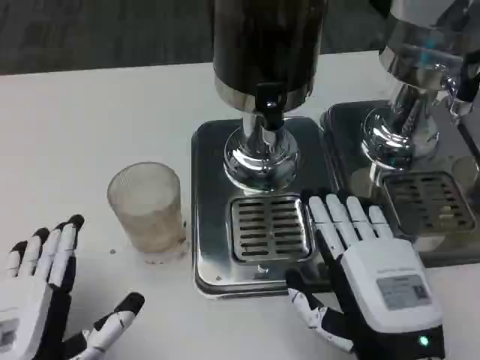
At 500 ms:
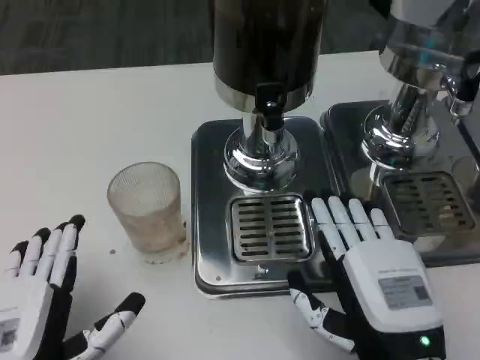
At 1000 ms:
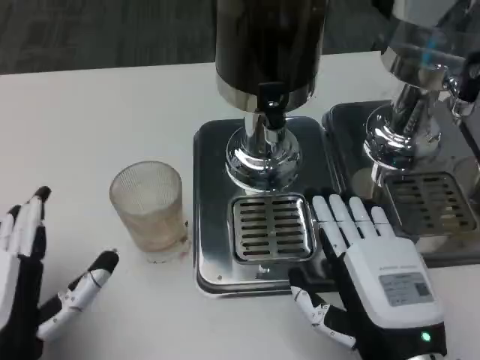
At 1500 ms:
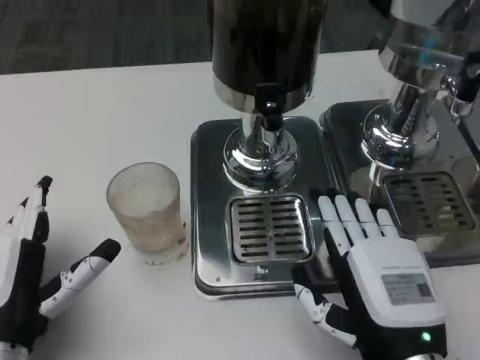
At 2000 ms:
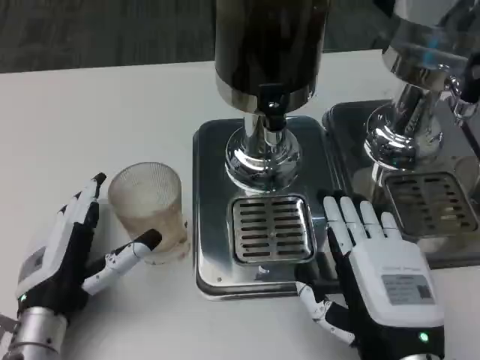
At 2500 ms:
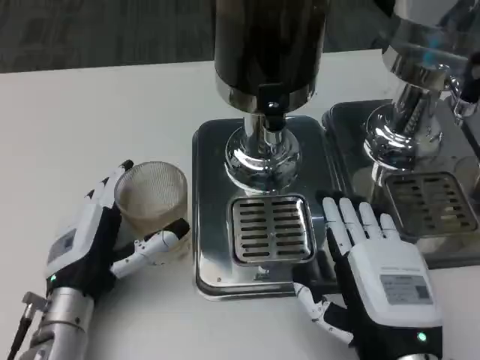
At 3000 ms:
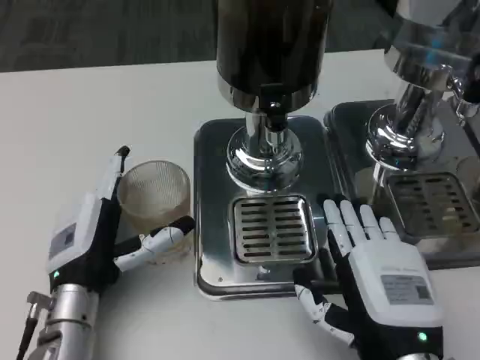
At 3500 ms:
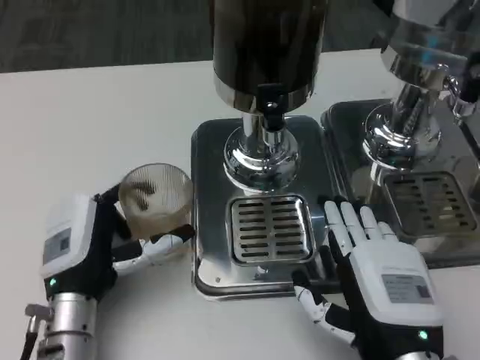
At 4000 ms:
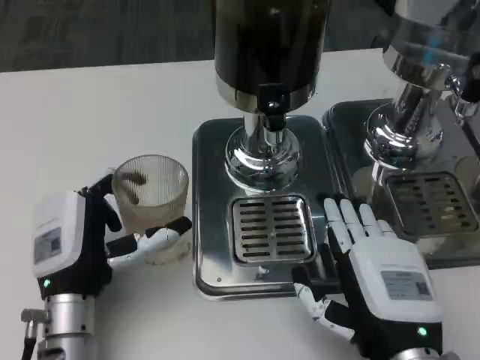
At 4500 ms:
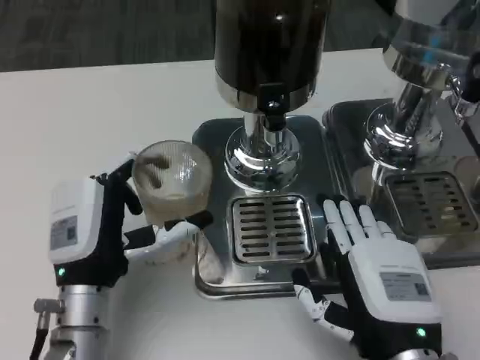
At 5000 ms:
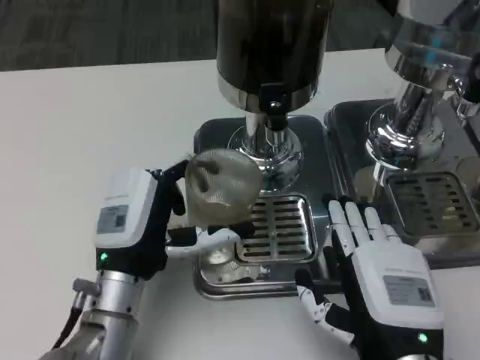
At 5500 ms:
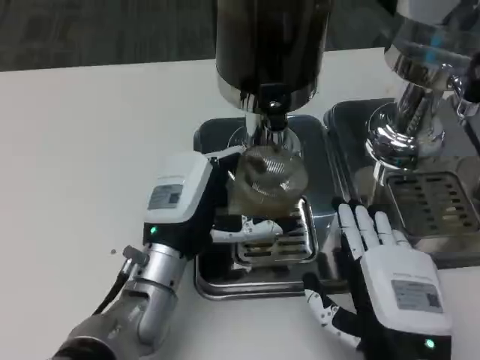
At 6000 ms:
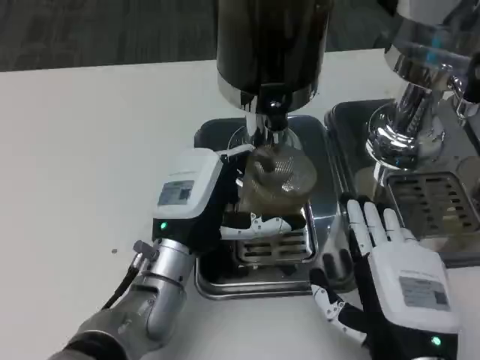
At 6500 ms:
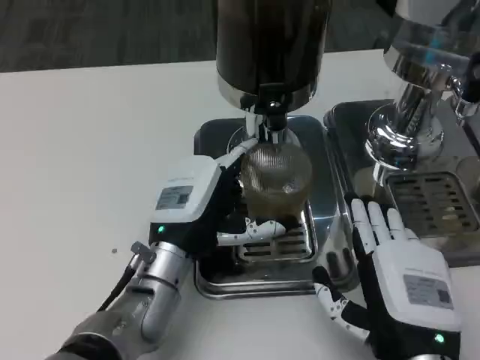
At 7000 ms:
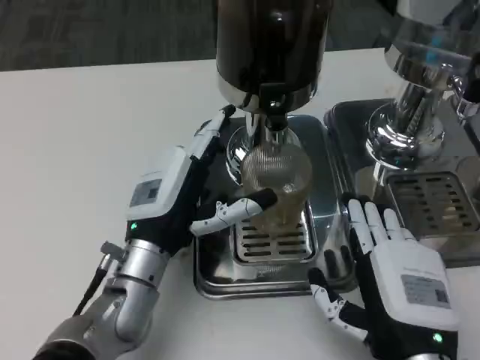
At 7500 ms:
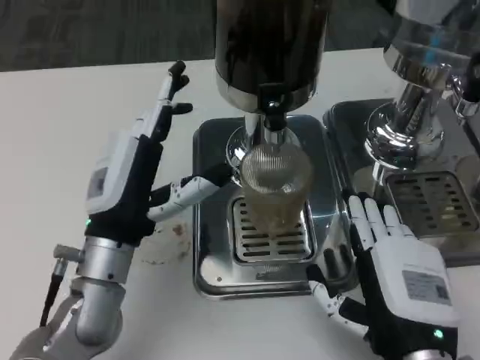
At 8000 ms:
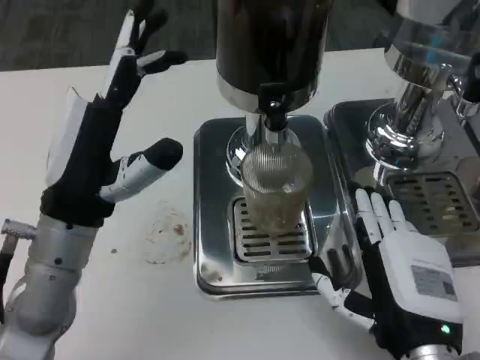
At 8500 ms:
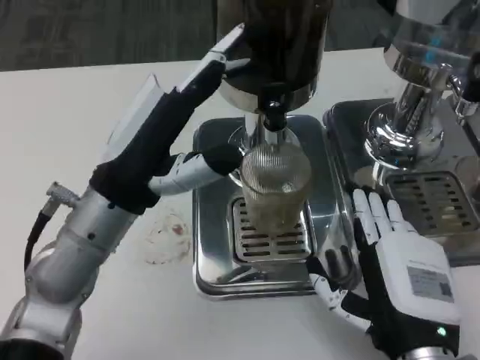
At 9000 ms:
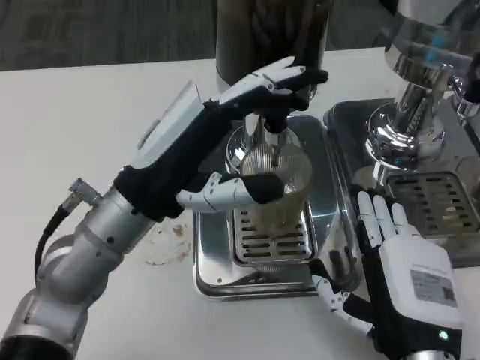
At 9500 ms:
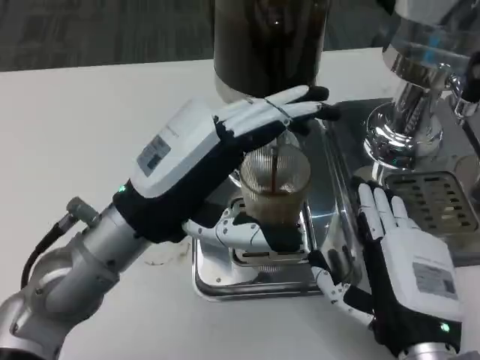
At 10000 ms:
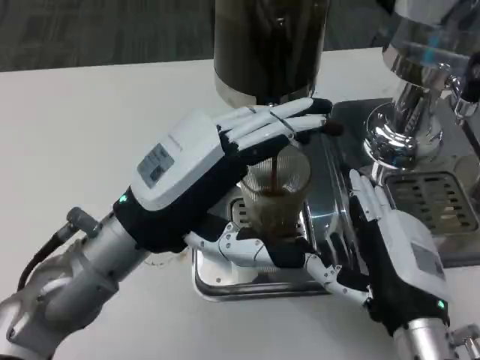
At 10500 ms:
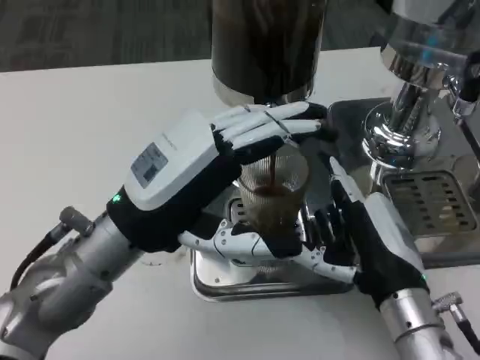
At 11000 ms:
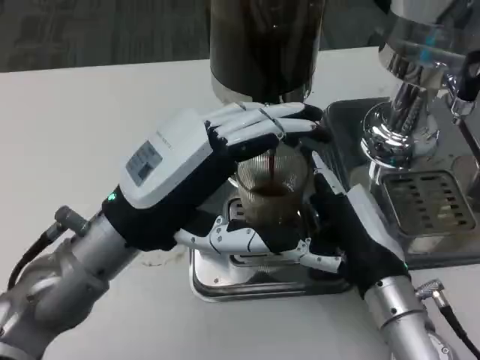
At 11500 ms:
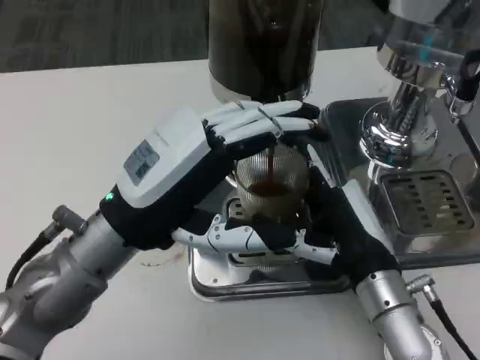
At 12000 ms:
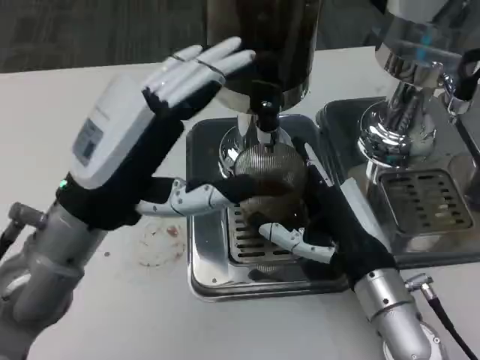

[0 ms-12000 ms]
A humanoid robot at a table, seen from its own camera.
Task of the whole recording: Grasp the cup under the faucet to collect the drink, then remove the cup.
0 ms to 2000 ms: The left hand moves forward, about 10 cm.
4000 ms to 6000 ms: The left hand travels to the right by approximately 10 cm.
6000 ms to 8000 ms: The left hand shifts about 10 cm upward and to the left.
10000 ms to 12000 ms: The right hand heads forward, covering approximately 5 cm.

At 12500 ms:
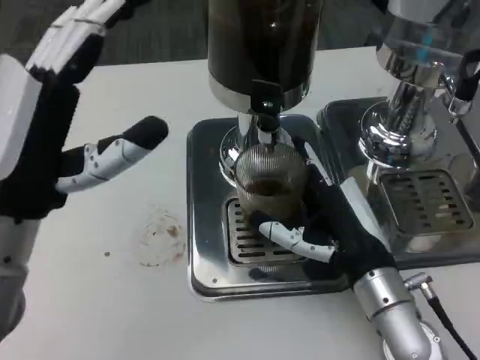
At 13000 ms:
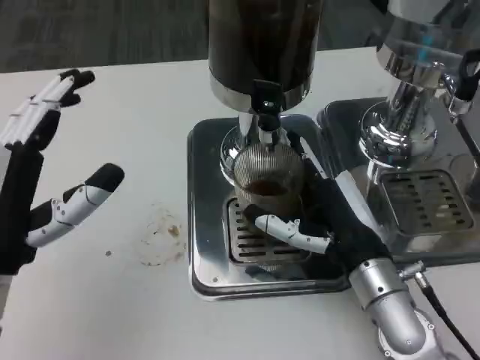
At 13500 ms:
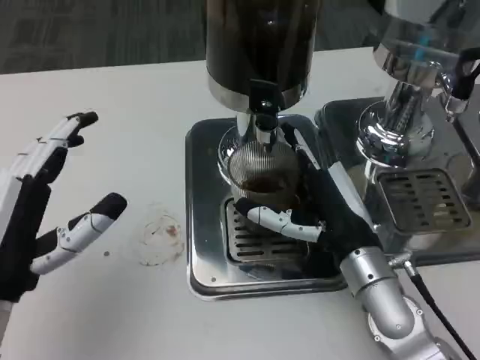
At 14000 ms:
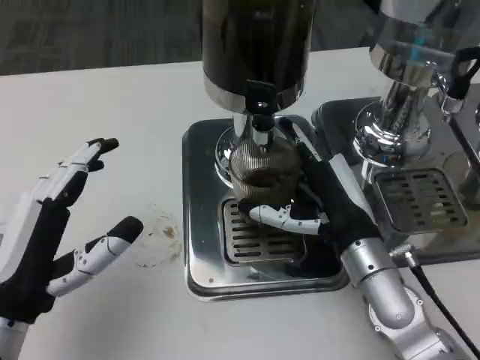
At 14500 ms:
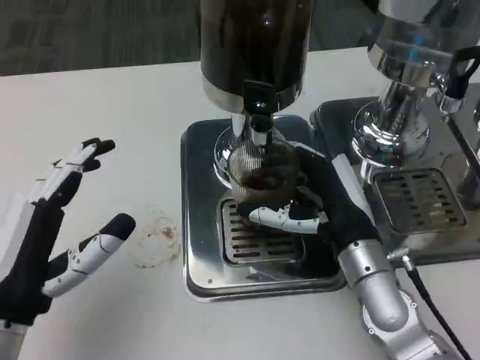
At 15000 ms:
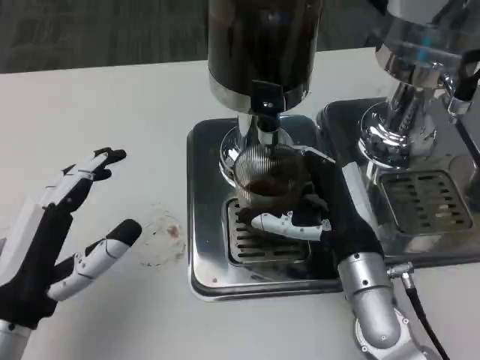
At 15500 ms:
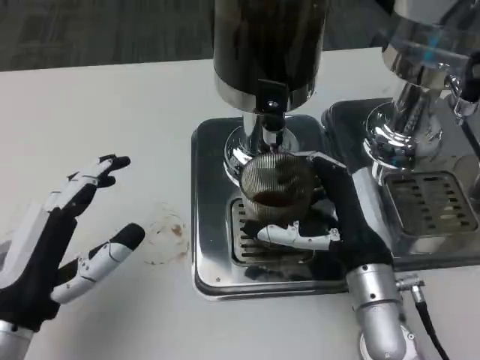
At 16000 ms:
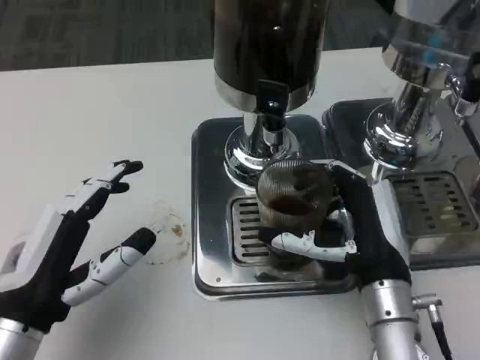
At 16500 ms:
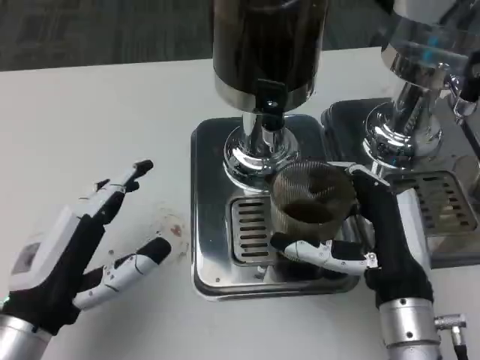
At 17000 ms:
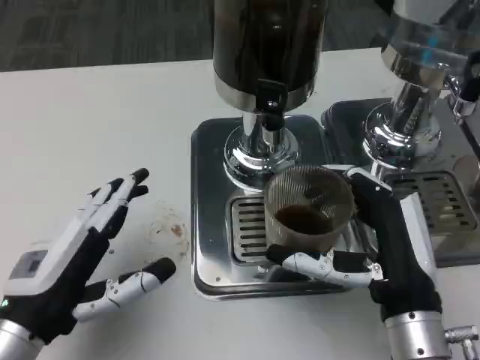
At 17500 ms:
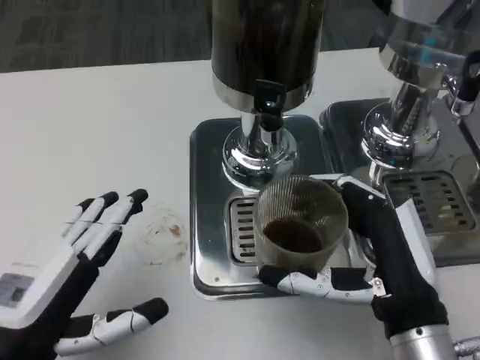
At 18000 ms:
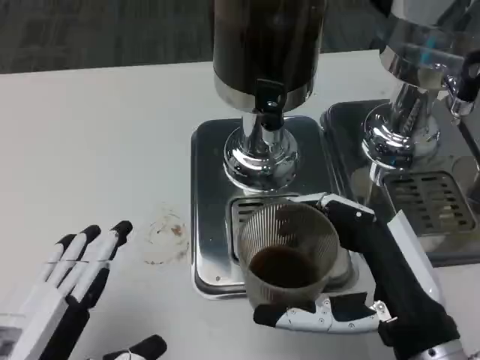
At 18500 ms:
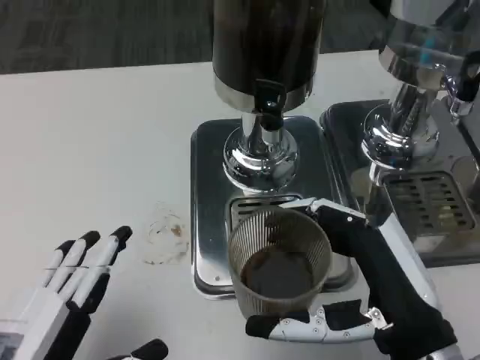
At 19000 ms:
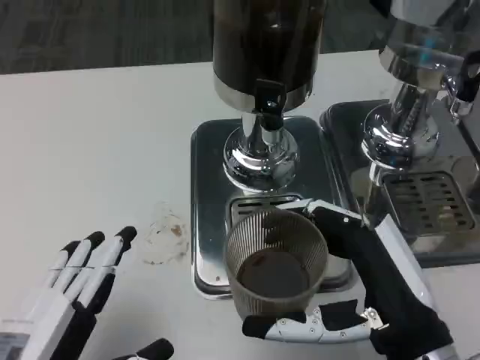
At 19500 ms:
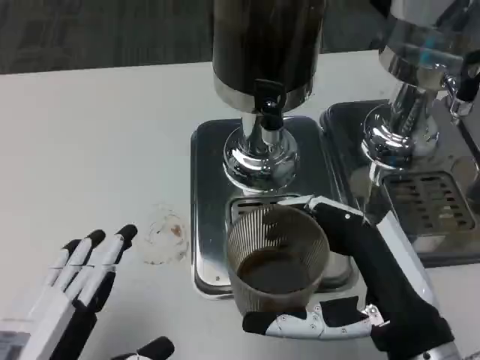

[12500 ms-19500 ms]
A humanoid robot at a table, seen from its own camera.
Task of the whole recording: Grasp the cup under the faucet to collect the drink, then remove the cup.
12500 ms to 14500 ms: The left hand moves downward and backward, roughly 10 cm.
16000 ms to 17500 ms: The right hand goes approximately 5 cm backward.
17500 ms to 19500 ms: The left hand shifts by some 5 cm.

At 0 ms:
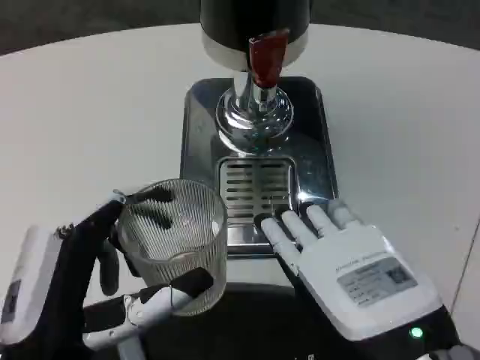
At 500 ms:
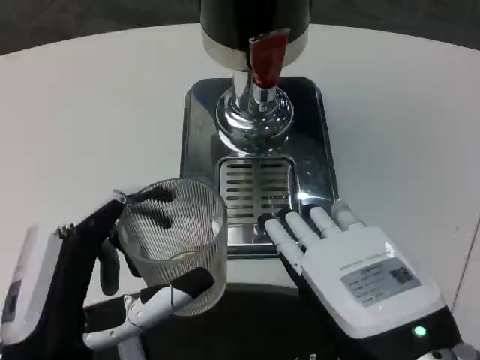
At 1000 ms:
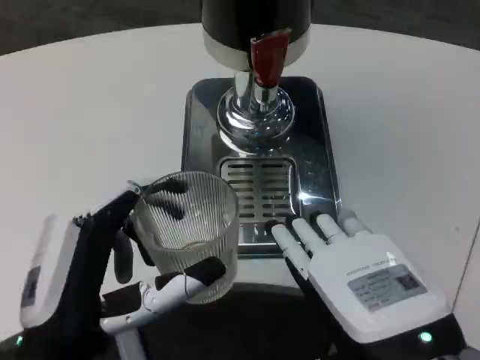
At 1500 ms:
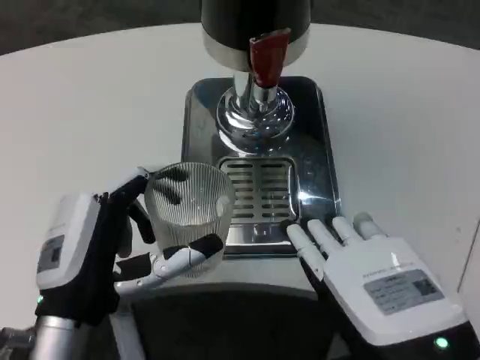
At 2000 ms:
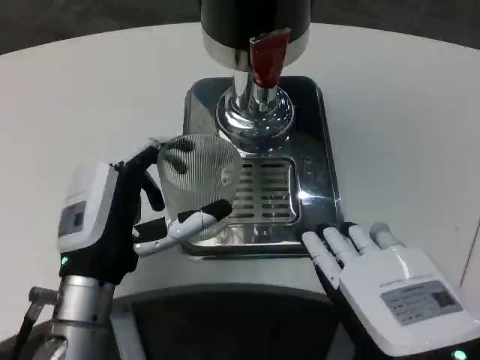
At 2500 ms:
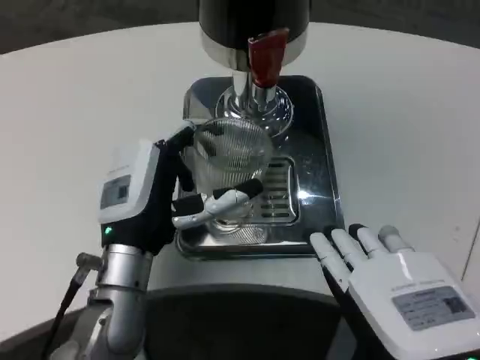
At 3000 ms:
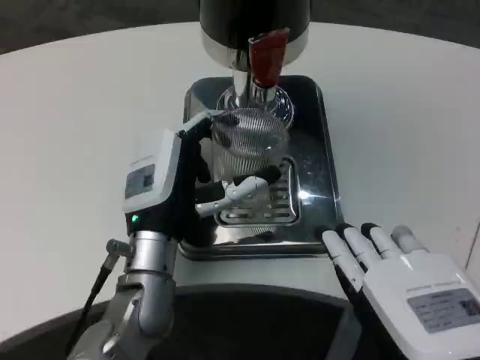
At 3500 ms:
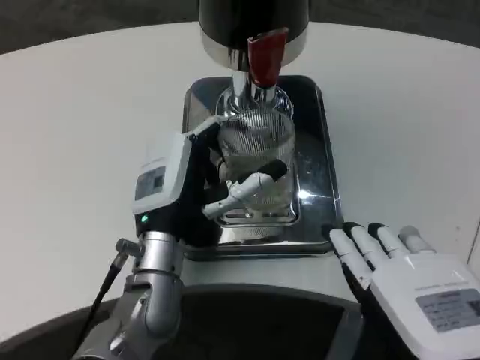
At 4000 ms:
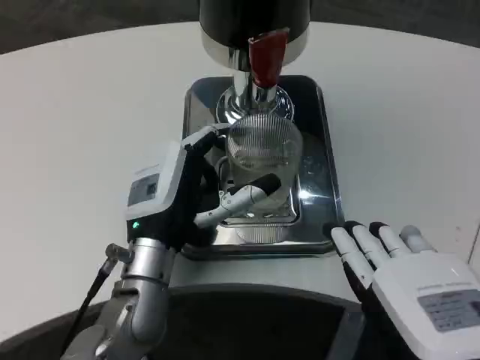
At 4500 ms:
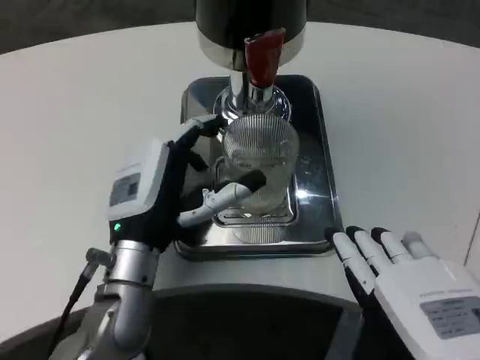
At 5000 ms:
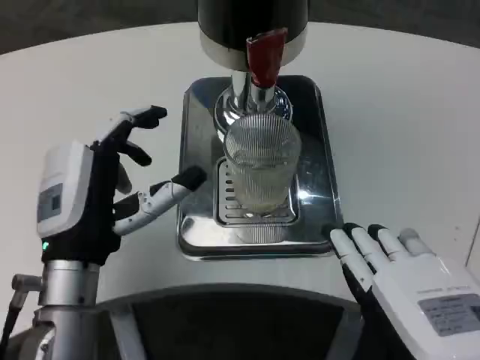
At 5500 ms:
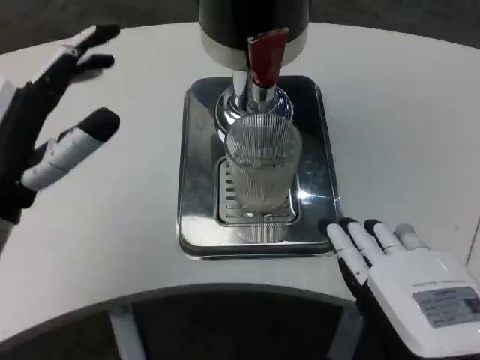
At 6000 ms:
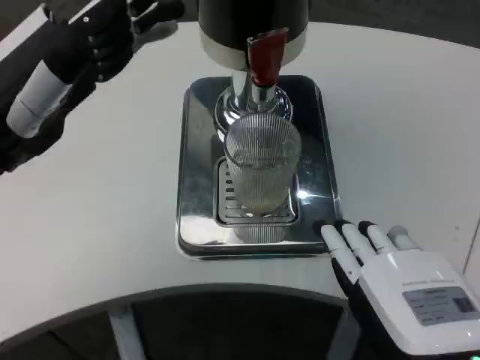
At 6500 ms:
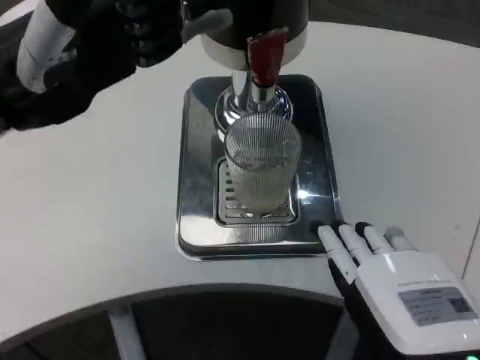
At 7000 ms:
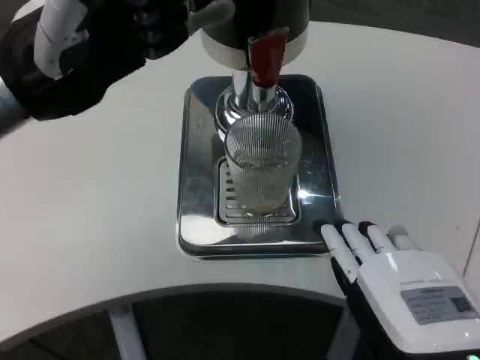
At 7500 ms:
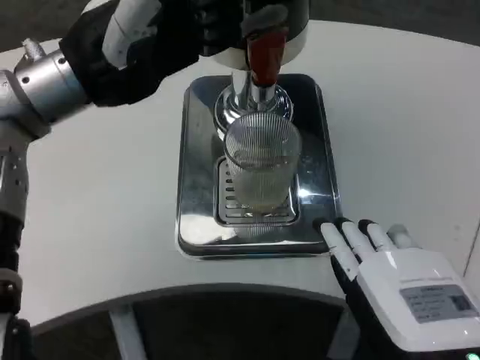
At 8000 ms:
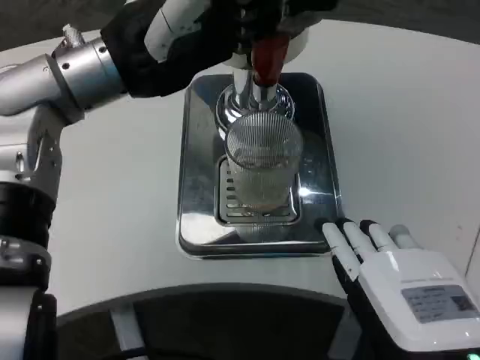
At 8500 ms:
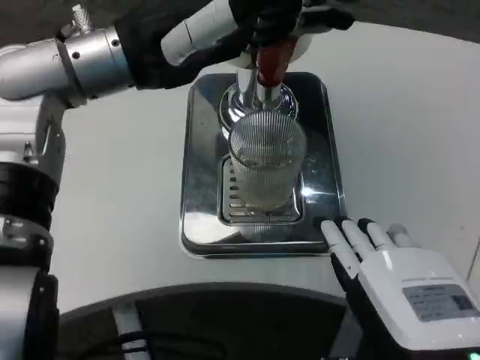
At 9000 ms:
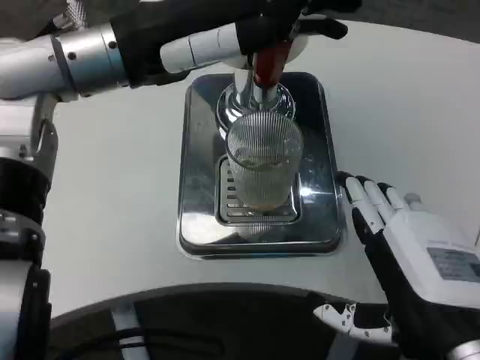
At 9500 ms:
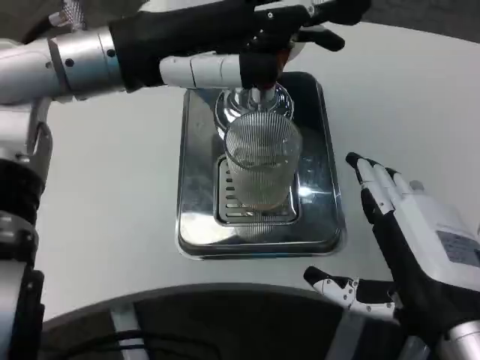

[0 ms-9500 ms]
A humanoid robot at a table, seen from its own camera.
Task of the whole recording: Grasp the cup under the faucet to collect the drink, then remove the cup.
0 ms to 2000 ms: The left hand is displaced forward by some 10 cm.
2000 ms to 4000 ms: The left hand moves roughly 5 cm.
4000 ms to 5500 ms: The left hand shifts about 15 cm to the left, upward and backward.
5500 ms to 7500 ms: The left hand moves upward and forward, approximately 15 cm.
7500 ms to 9500 ms: The right hand is displaced forward by approximately 5 cm.
